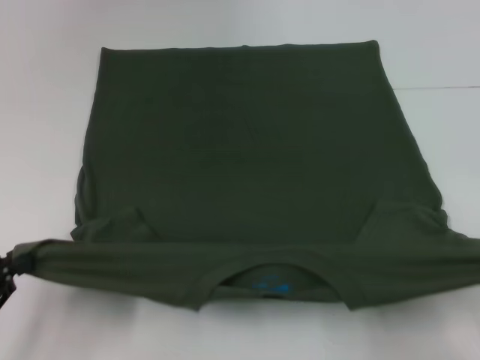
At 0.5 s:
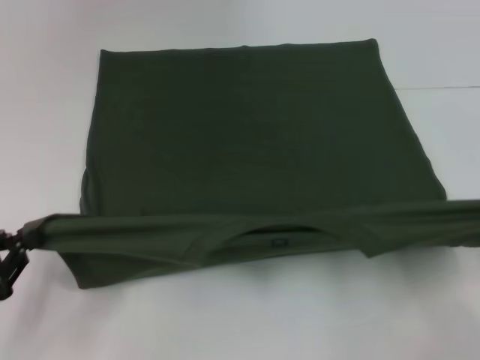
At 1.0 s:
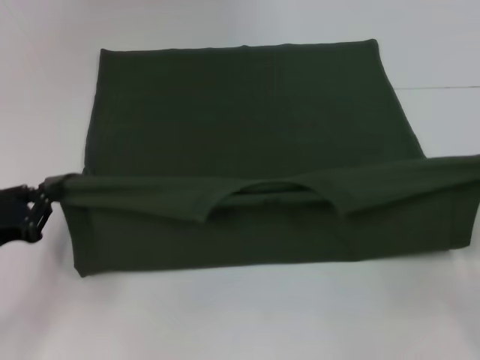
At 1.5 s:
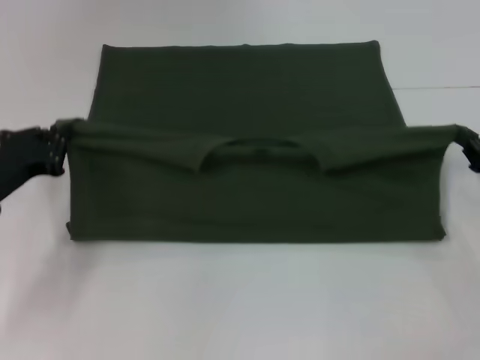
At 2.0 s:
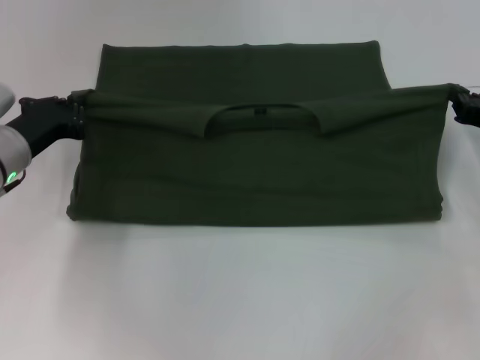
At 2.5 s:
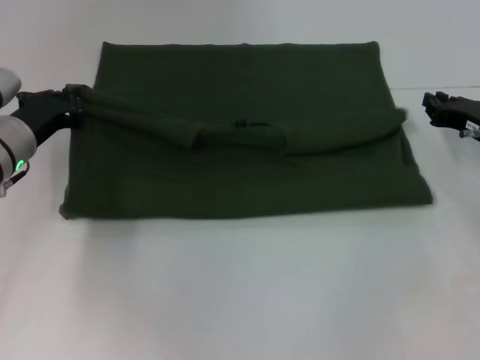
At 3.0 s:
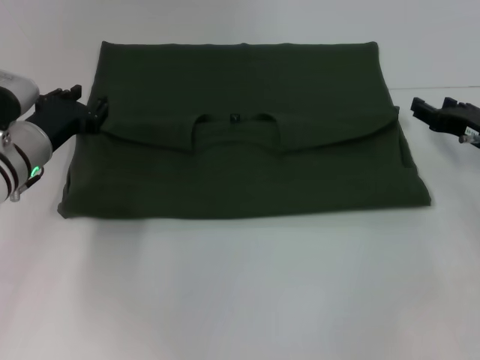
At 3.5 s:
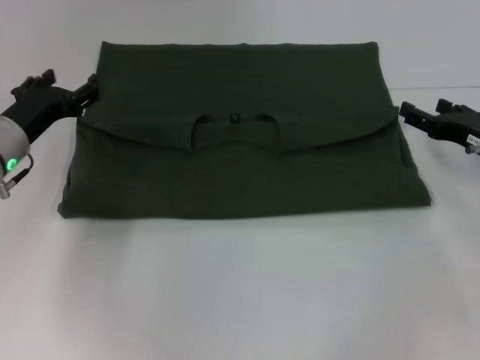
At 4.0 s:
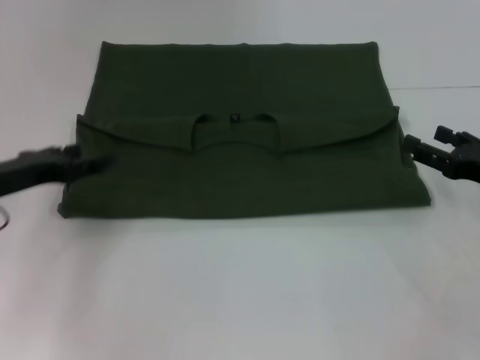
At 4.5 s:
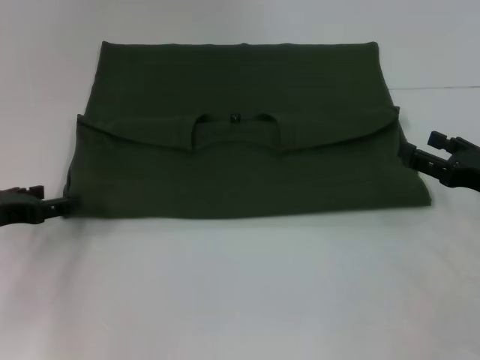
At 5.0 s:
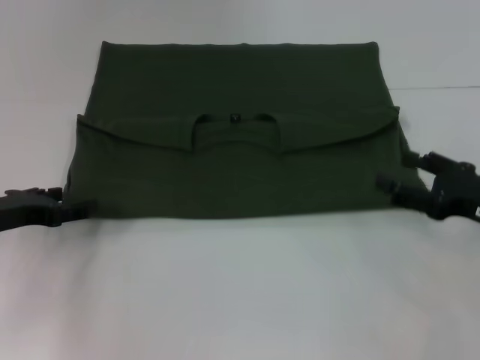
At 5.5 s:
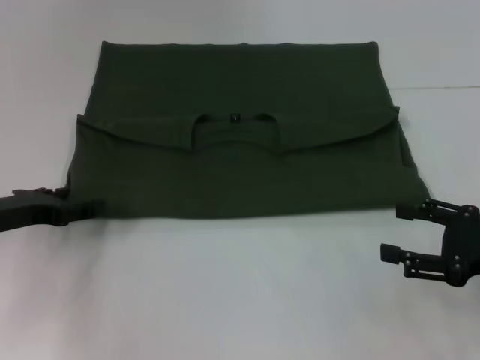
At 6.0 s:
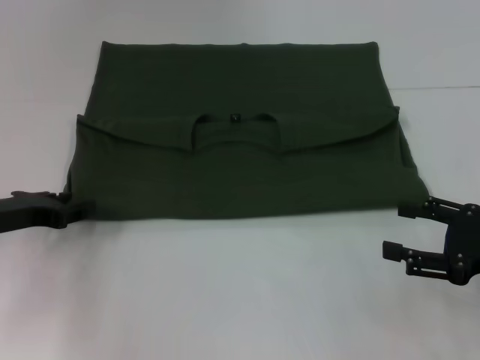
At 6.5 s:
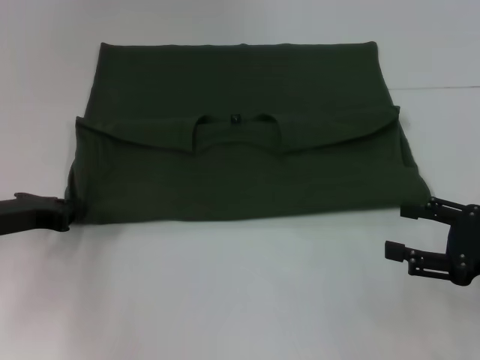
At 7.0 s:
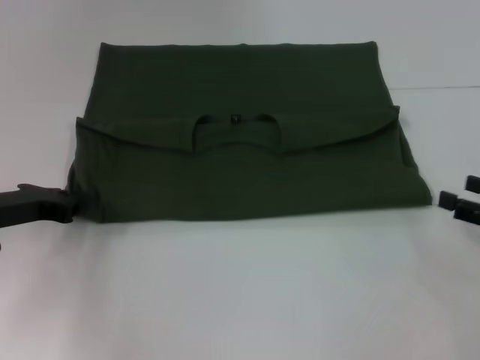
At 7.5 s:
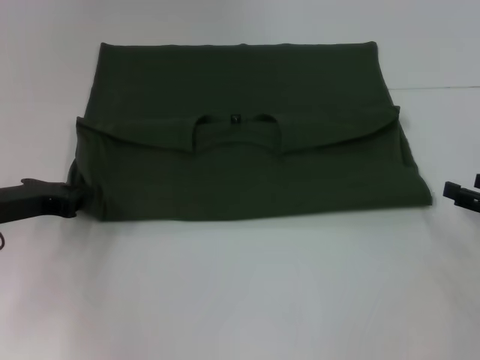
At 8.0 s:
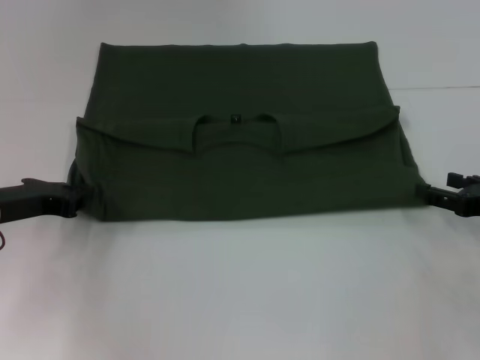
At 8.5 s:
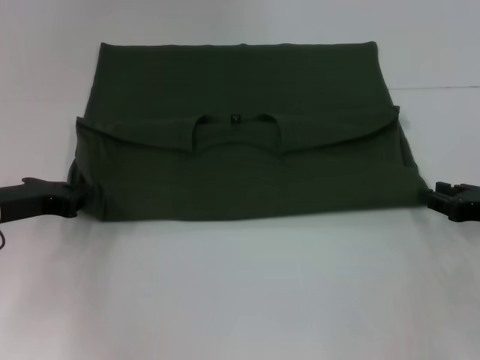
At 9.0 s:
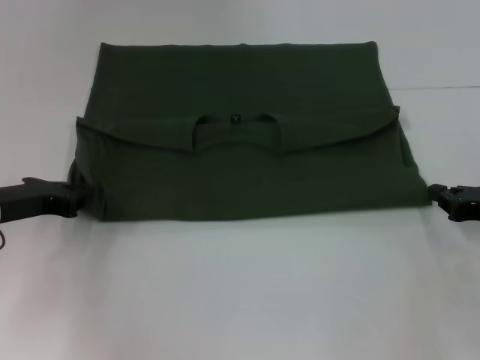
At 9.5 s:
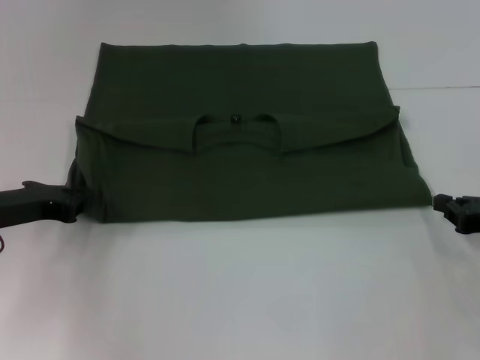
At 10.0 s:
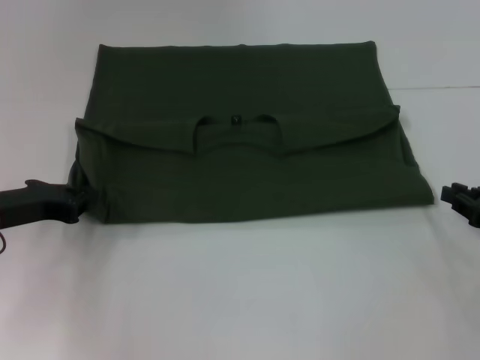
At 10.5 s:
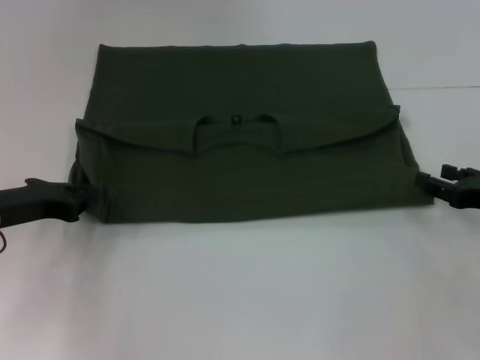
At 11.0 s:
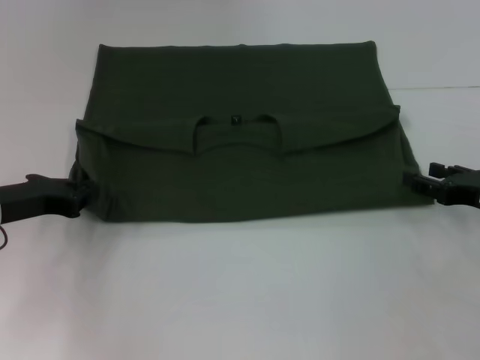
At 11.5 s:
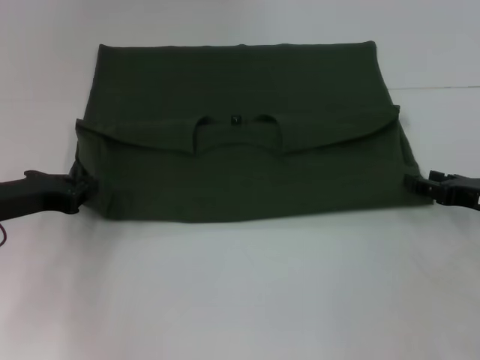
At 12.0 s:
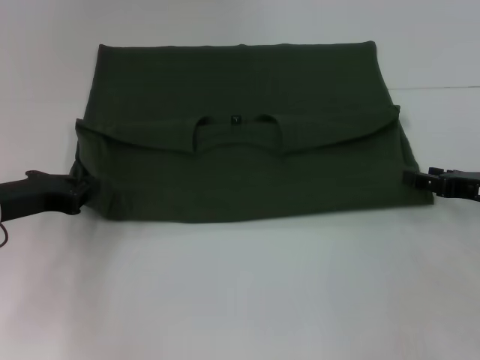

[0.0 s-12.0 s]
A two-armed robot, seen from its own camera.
Step, 0.0 to 3.0 s: Fold the clothes with your left hand.
Step, 0.0 to 3.0 s: Fold the clothes with your right hand.
0.0 to 2.0 s: The right gripper travels forward by some 25 cm. Meanwhile the left gripper travels forward and to the right by roughly 25 cm.
2.0 to 4.0 s: The grippers both shift backward by about 5 cm. The left gripper opens up. Meanwhile the right gripper opens up.
4.0 to 6.0 s: The right gripper shifts some 5 cm backward.
6.0 to 8.0 s: The left gripper closes, while the right gripper moves forward, roughly 5 cm.
8.0 to 10.0 s: The right gripper closes up.
10.0 to 12.0 s: The right gripper shifts by some 5 cm, and opens up.

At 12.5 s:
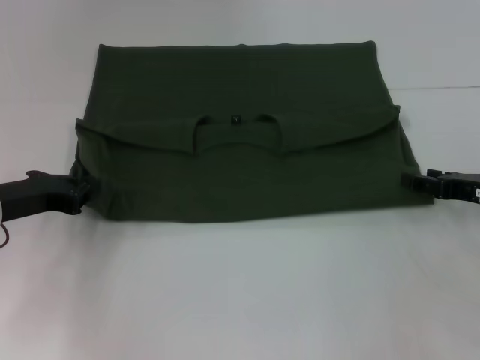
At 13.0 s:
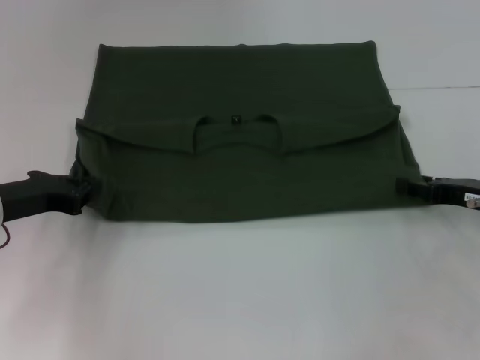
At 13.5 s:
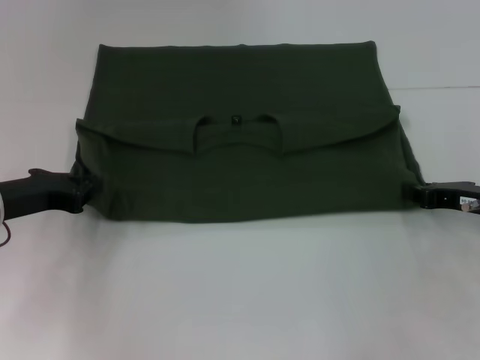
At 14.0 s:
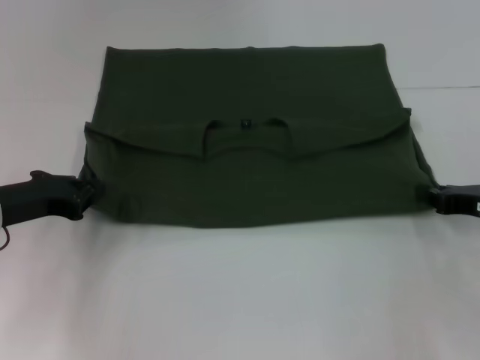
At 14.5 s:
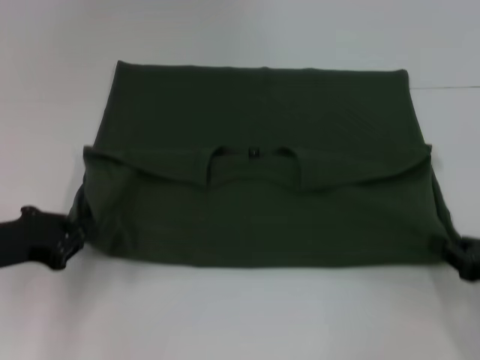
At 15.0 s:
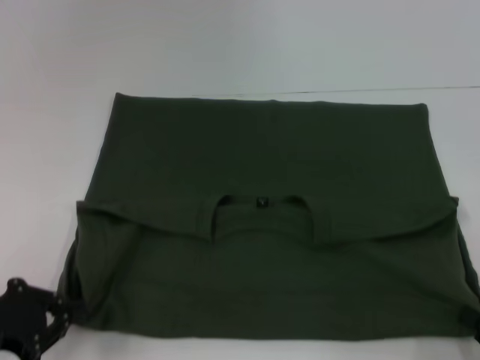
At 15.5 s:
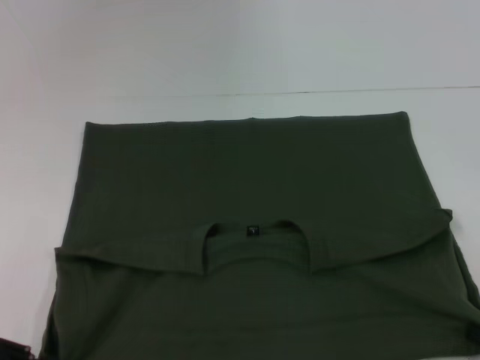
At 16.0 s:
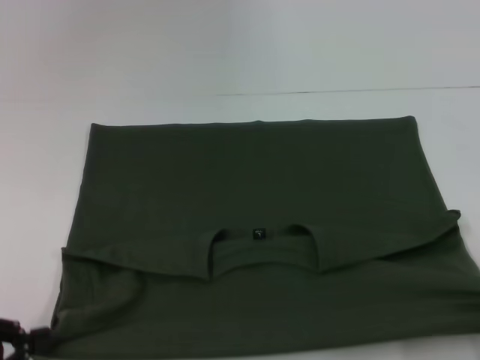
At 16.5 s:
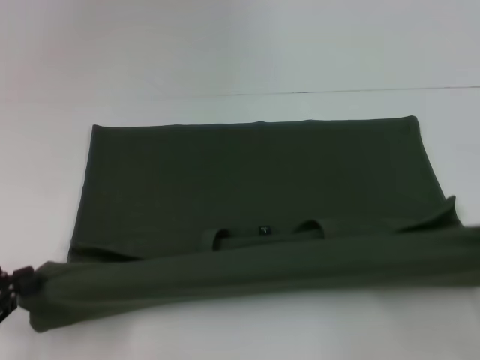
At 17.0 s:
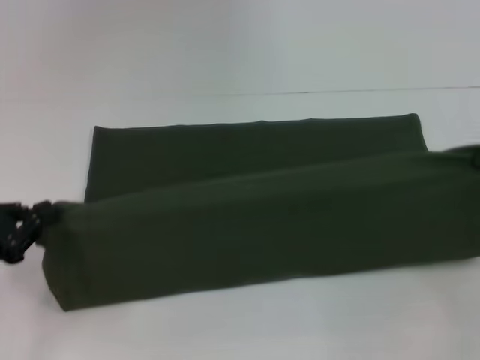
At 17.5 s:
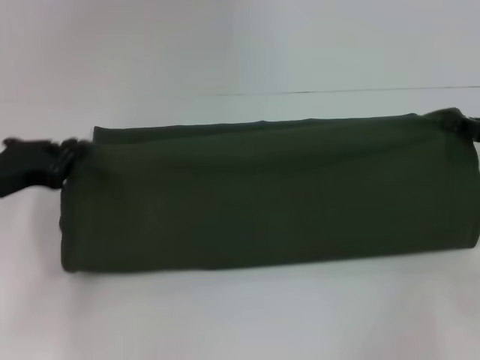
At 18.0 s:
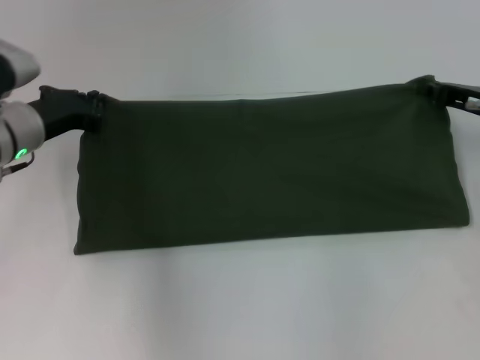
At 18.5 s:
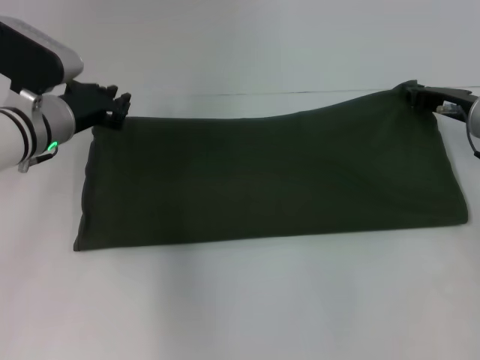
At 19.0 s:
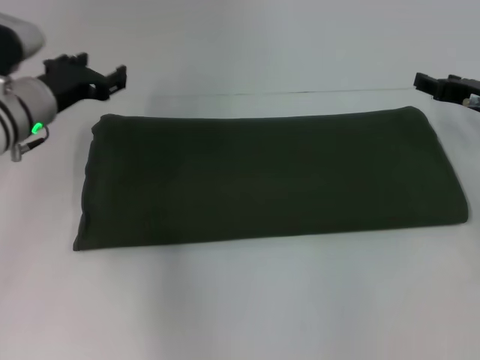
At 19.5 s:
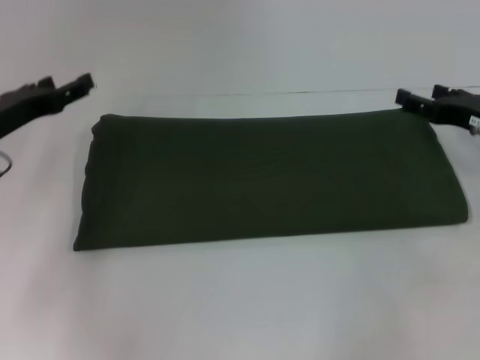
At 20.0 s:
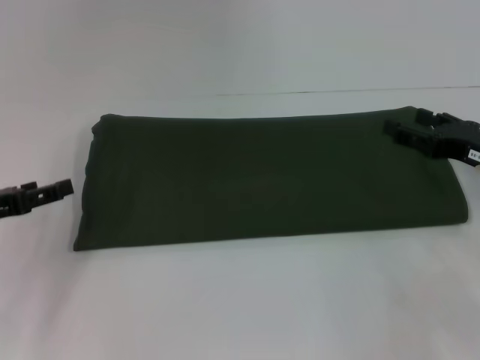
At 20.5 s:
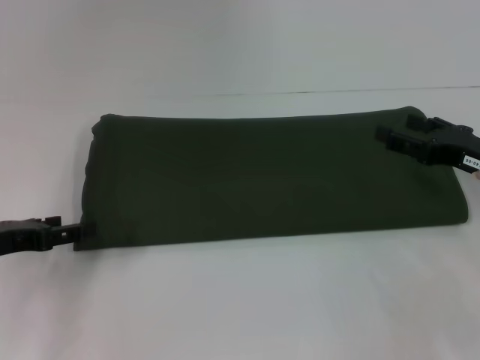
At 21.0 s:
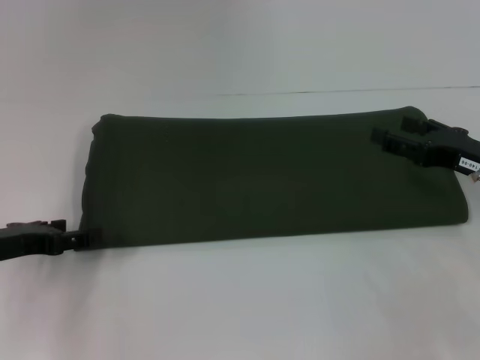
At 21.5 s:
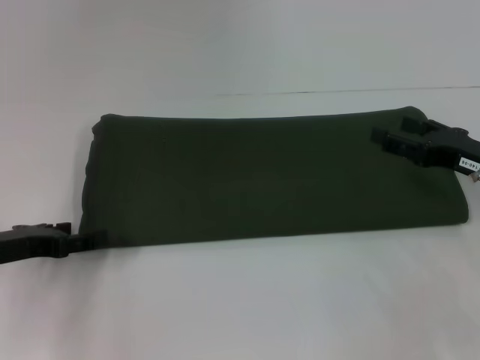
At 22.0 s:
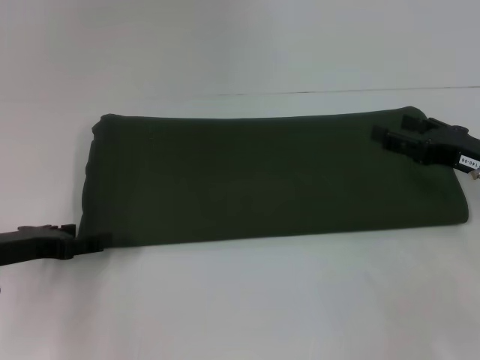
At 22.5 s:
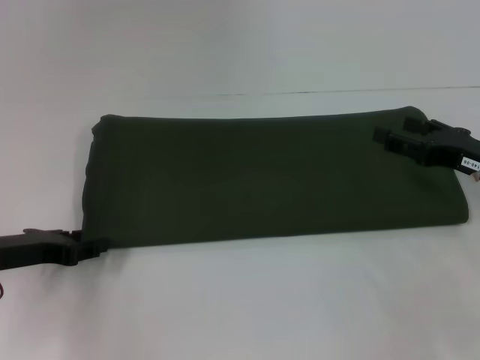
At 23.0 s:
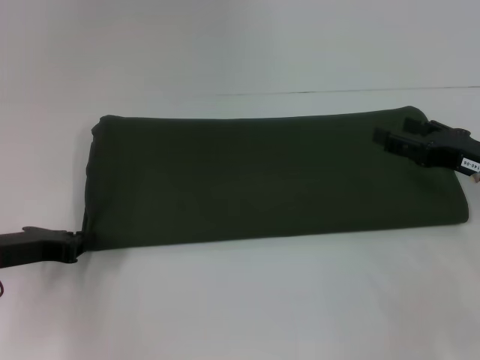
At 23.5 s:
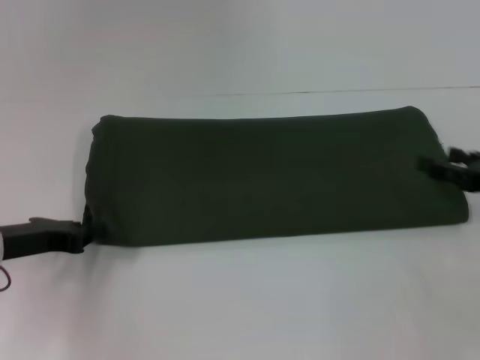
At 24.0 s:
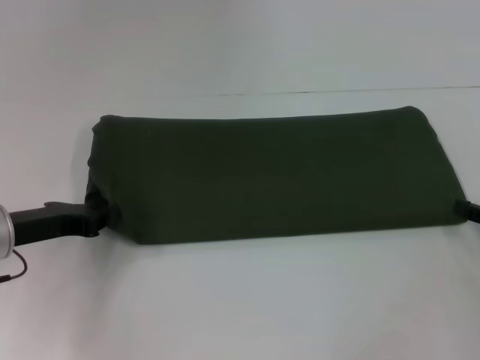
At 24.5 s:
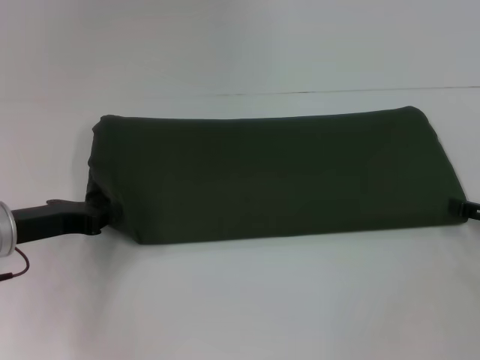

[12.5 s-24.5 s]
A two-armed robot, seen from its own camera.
Step, 12.5 to 15.5 s: Pull the clothes with your left hand.
Step, 12.5 to 15.5 s: Pull the clothes with your right hand.
Step, 16.0 to 18.5 s: Fold the clothes with your left hand.
Step, 16.0 to 18.5 s: Fold the clothes with your right hand.
12.5 to 14.5 s: The left gripper travels backward by roughly 5 cm; the right gripper goes about 10 cm backward, and closes up.
14.5 to 16.5 s: The right gripper travels backward by approximately 5 cm. Meanwhile the left gripper moves backward, approximately 10 cm.
16.5 to 18.5 s: The left gripper is displaced forward and to the right by roughly 25 cm, while the right gripper shifts some 25 cm forward and to the left.
18.5 to 20.5 s: The left gripper moves backward and to the left, some 15 cm, and opens its fingers. Meanwhile the right gripper moves backward, roughly 10 cm, and opens up.
20.5 to 22.5 s: The grippers stay close to where they were, moving slightly.
22.5 to 24.5 s: The left gripper closes. The right gripper shifts about 5 cm to the right.

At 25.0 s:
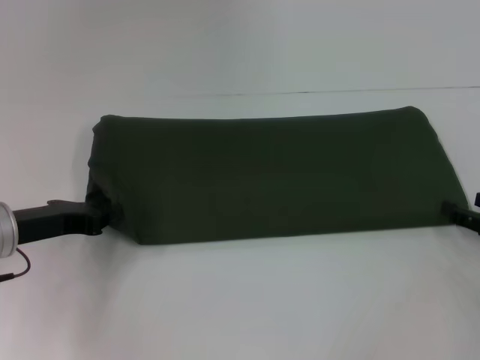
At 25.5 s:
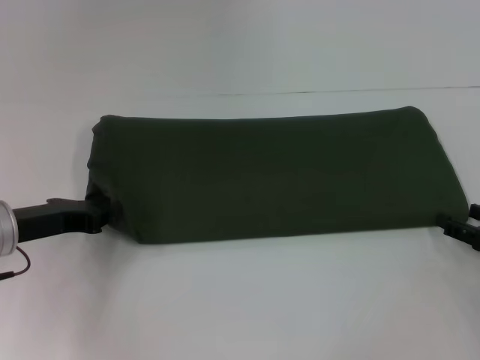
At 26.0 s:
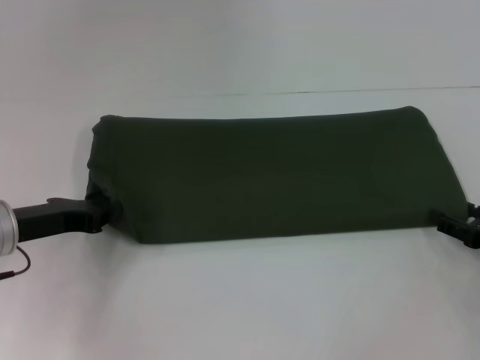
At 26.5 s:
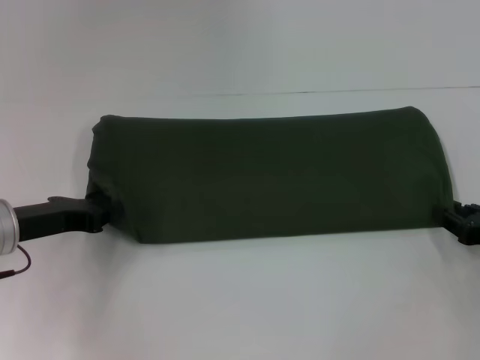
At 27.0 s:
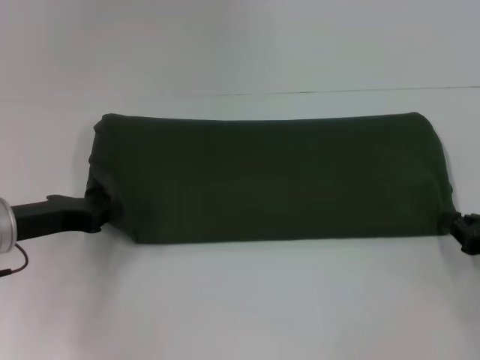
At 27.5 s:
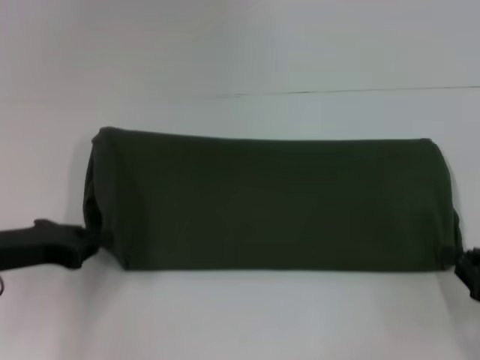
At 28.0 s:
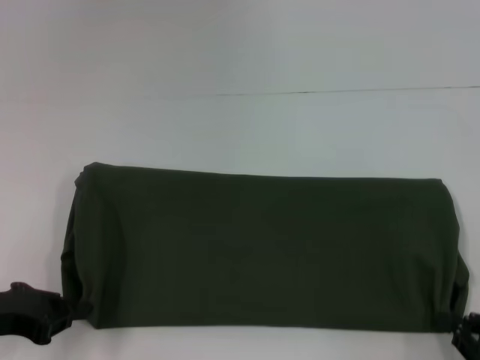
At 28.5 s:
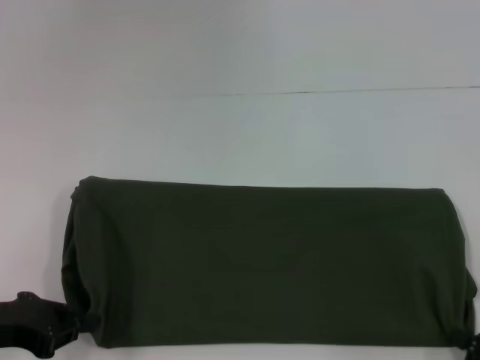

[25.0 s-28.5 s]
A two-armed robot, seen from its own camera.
Step, 25.0 to 28.0 s: Pull the clothes with your left hand.
Step, 25.0 to 28.0 s: Pull the clothes with your right hand.
25.0 to 27.0 s: The right gripper closes up.
27.0 to 28.5 s: The left gripper travels backward by approximately 10 cm. The right gripper goes about 15 cm backward.
